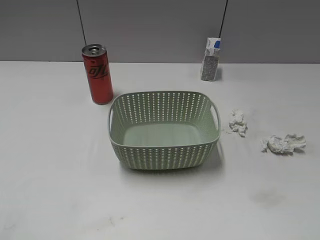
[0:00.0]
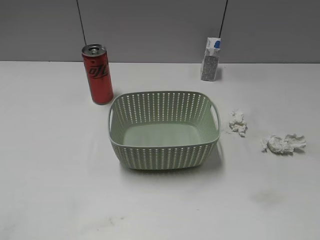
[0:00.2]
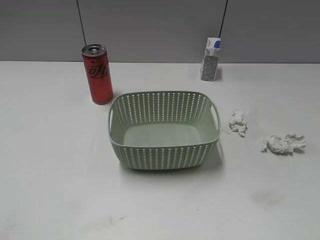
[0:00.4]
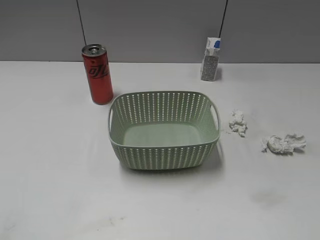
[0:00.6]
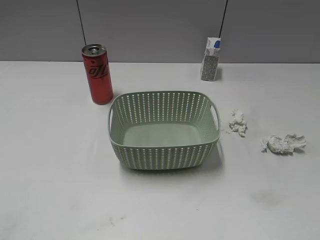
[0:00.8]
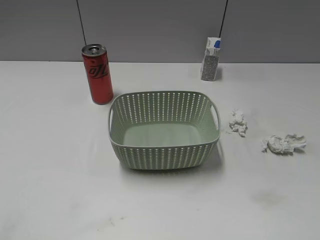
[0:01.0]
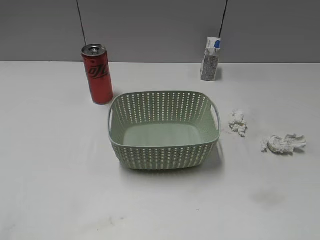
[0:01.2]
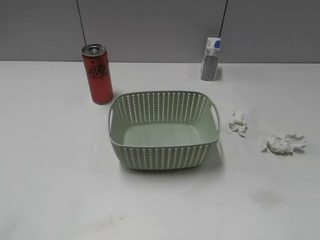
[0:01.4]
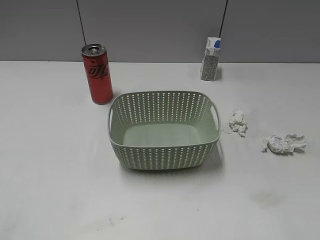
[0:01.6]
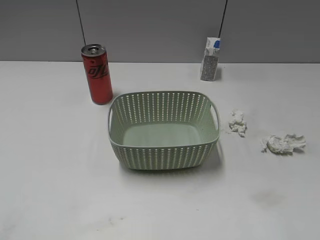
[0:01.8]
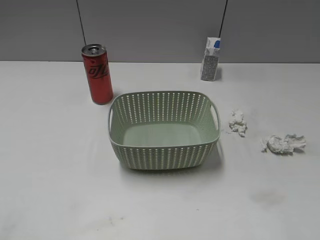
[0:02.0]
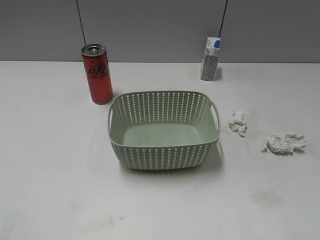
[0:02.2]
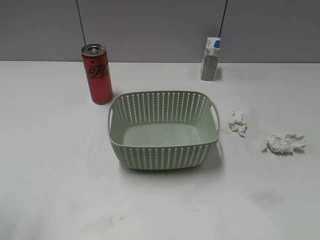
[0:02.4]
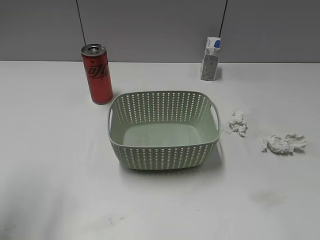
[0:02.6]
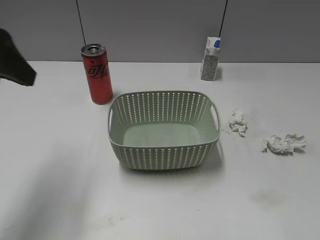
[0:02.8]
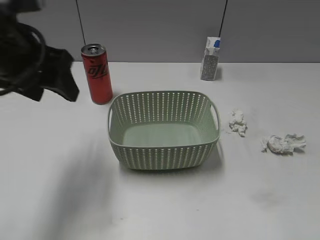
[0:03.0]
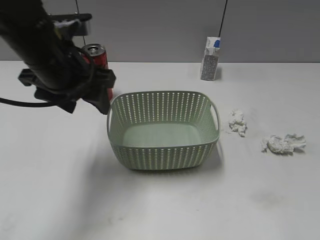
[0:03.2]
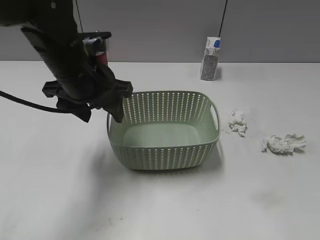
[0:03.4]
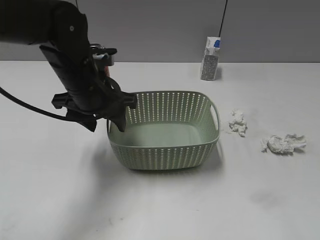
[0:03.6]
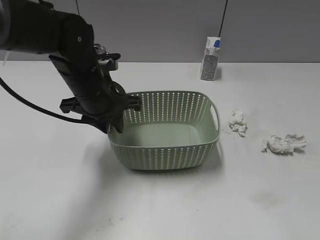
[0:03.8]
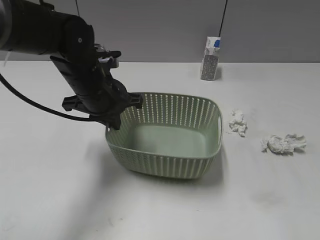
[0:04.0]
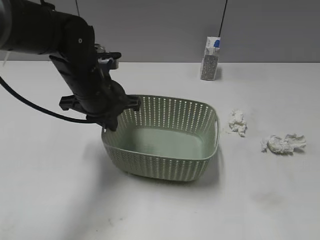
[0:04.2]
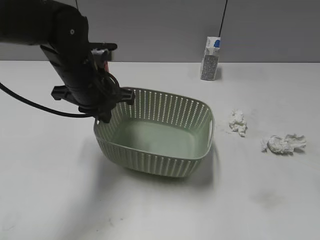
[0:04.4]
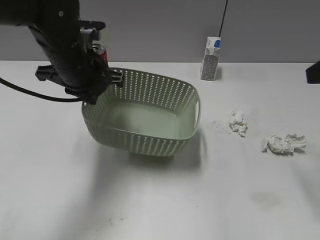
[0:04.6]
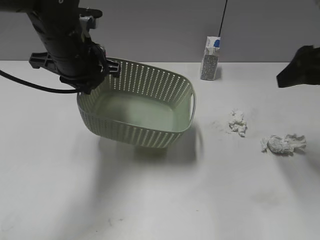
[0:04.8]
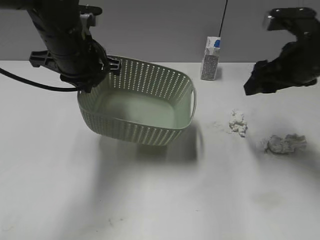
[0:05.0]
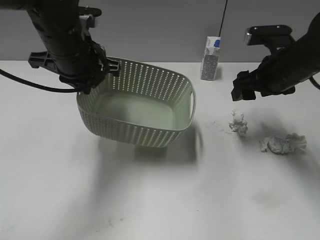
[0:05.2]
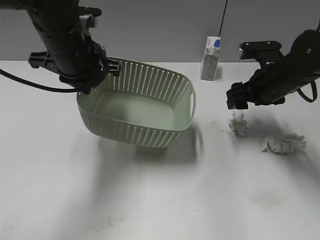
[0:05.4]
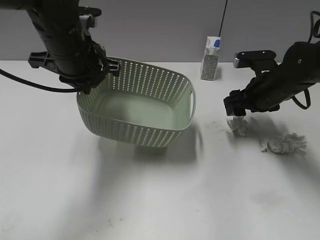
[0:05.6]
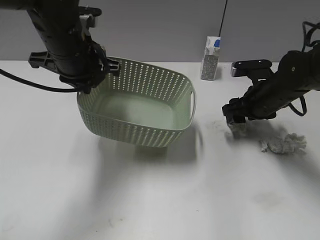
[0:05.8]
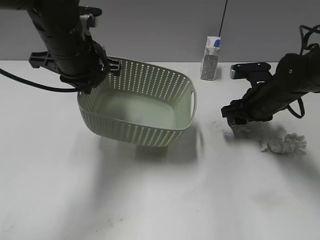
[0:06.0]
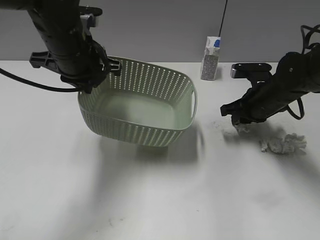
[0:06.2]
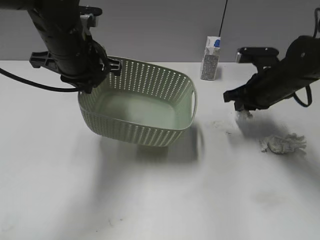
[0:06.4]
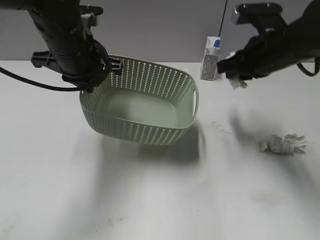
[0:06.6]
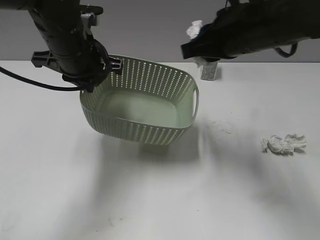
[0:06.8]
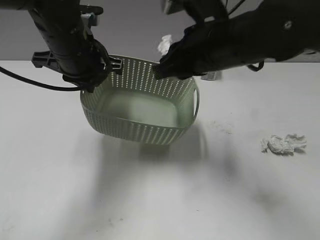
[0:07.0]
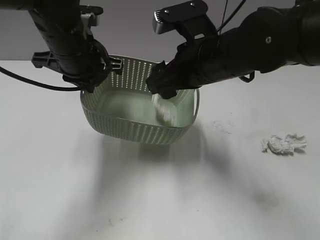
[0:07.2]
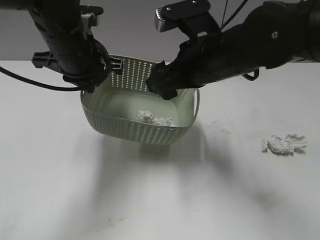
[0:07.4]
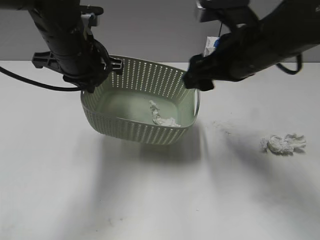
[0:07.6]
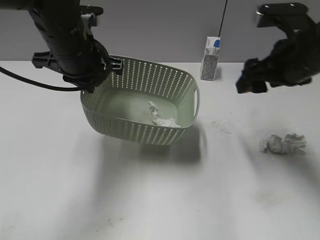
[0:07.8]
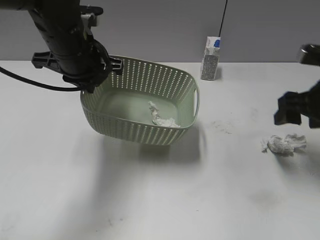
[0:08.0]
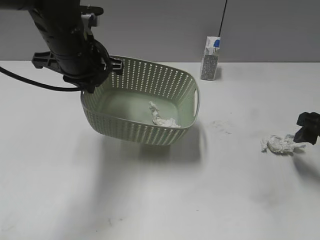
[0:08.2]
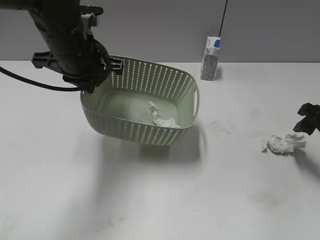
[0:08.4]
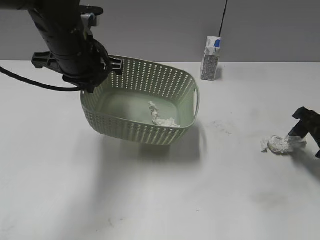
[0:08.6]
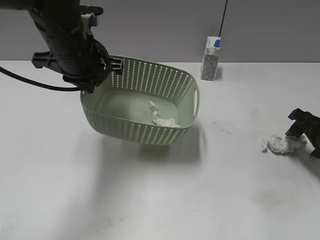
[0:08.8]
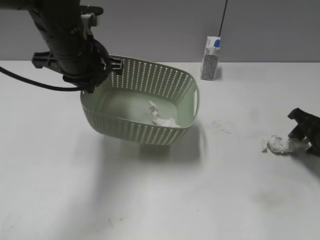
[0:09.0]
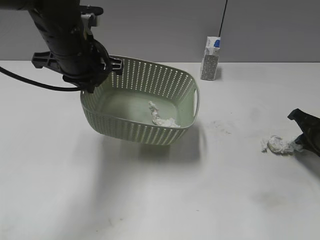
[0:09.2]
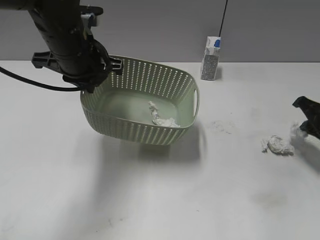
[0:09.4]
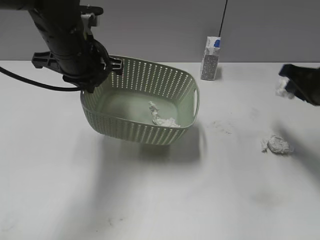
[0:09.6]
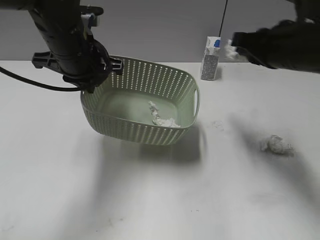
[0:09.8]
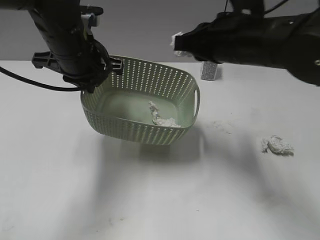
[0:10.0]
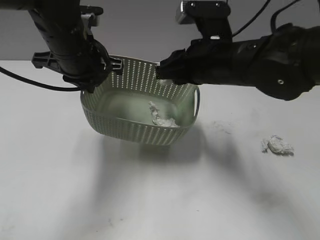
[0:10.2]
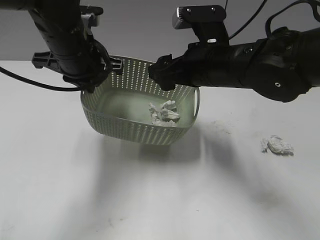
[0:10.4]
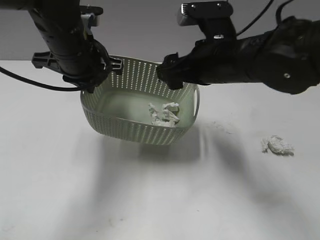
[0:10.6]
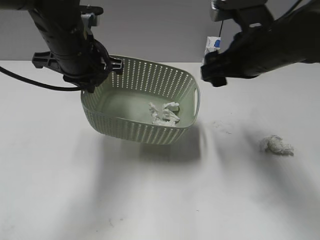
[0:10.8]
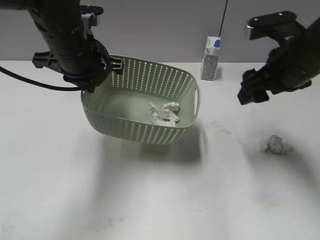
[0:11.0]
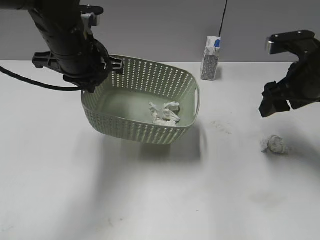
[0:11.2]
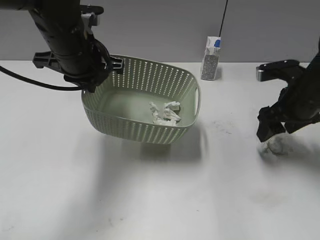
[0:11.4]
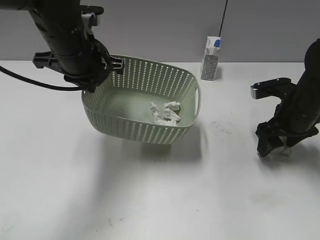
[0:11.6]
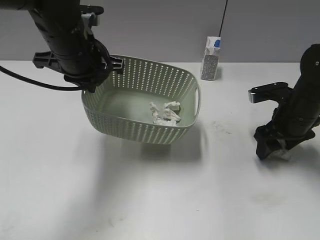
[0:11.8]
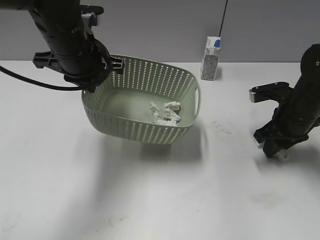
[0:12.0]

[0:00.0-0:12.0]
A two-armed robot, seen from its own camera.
Step, 0:01.0 to 0:04.0: Grasp the basket with left gripper.
Step, 0:04.2 to 0:04.8: Lift the basket with left gripper.
Step, 0:05.0 to 0:06.2: Grasp the waste paper with right gripper.
Step, 0:06.4 to 0:07.4: Place the waste paper in the basket with right gripper.
Step, 0:07.6 to 0:09.2: Grasp the waste paper with right gripper.
Step, 0:09.4 to 0:10.6: Place the waste paper in the basket with right gripper.
0:01.6 to 0:03.0: The left gripper travels forward and to the right by some 30 cm.
0:03.0 to 0:04.4: The right gripper heads forward, covering some 10 cm. Meanwhile the left gripper shifts some 15 cm downward, to the right and forward, and closes up.
0:04.4 to 0:06.0: The right gripper heads downward and forward, covering about 30 cm, while the left gripper shifts roughly 5 cm upward.
0:06.0 to 0:07.6: The right gripper goes approximately 20 cm upward, to the left and backward, and closes, then opens again.
0:07.6 to 0:09.0: The right gripper is displaced to the right and downward by about 25 cm.
0:09.0 to 0:10.4: The right gripper goes approximately 25 cm to the left and upward, and closes, then opens again.
0:10.4 to 0:12.0: The right gripper moves to the right and downward, about 20 cm, and closes its fingers.

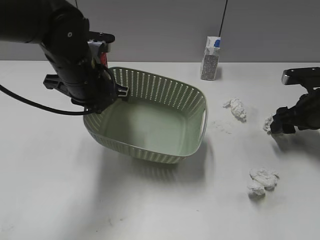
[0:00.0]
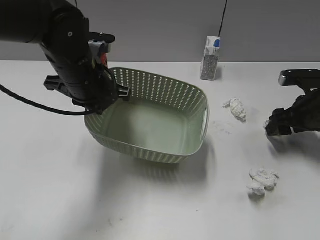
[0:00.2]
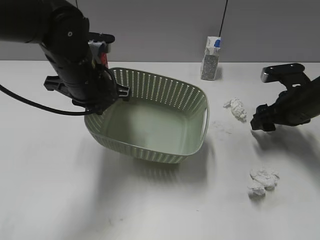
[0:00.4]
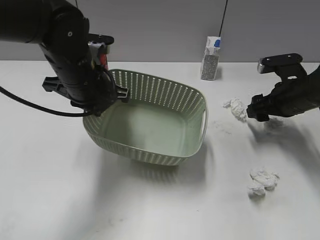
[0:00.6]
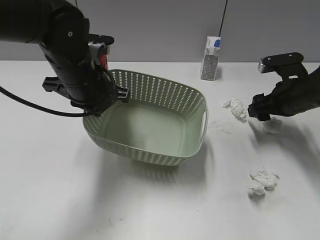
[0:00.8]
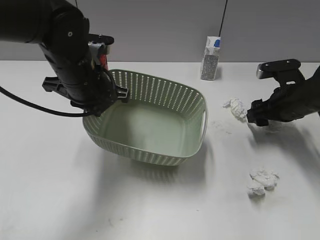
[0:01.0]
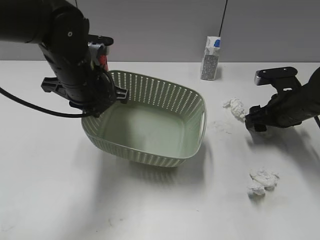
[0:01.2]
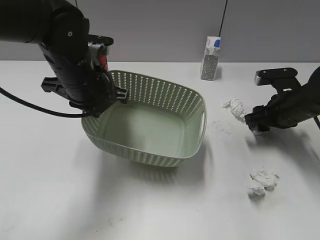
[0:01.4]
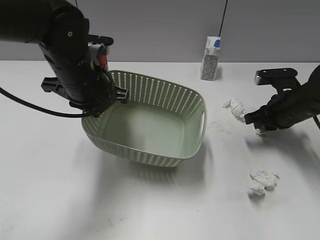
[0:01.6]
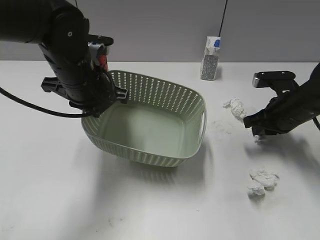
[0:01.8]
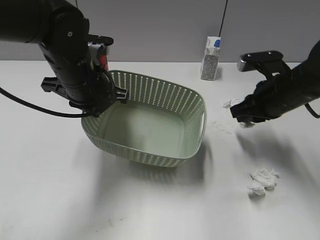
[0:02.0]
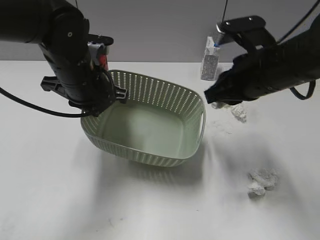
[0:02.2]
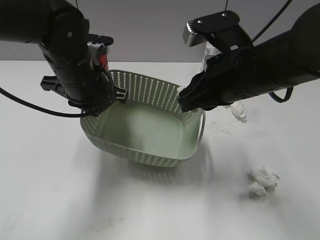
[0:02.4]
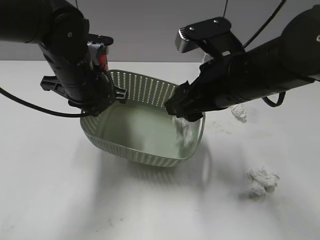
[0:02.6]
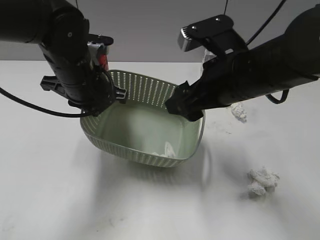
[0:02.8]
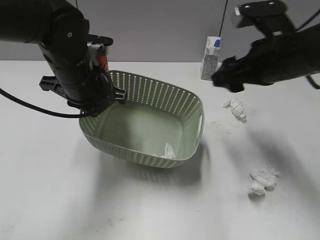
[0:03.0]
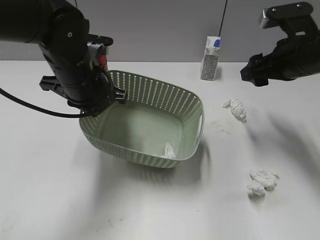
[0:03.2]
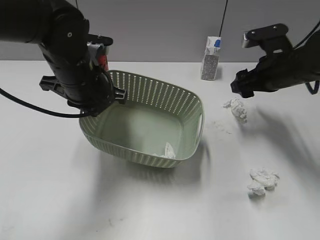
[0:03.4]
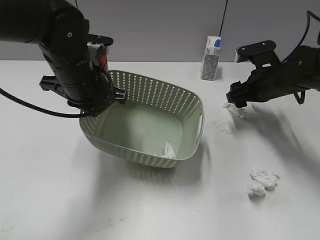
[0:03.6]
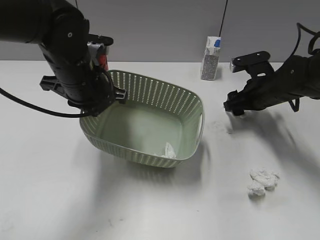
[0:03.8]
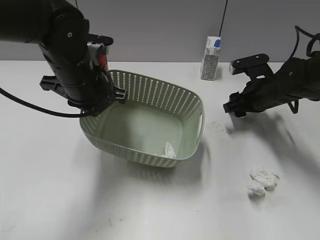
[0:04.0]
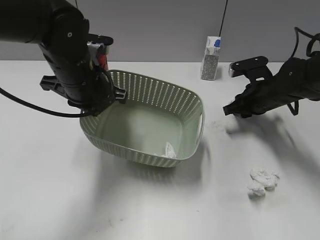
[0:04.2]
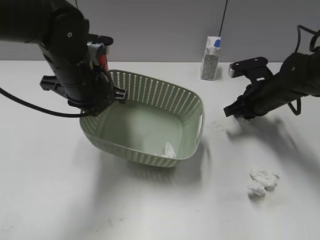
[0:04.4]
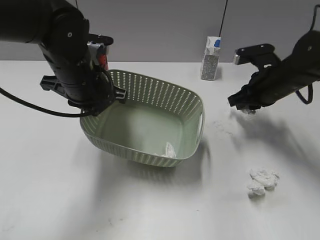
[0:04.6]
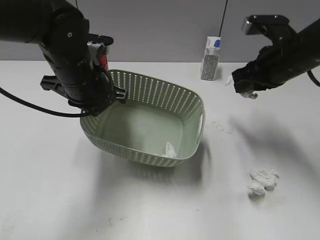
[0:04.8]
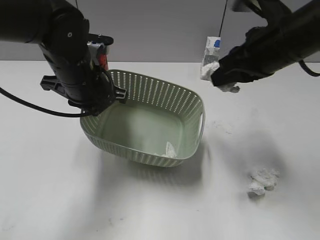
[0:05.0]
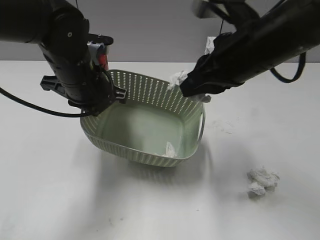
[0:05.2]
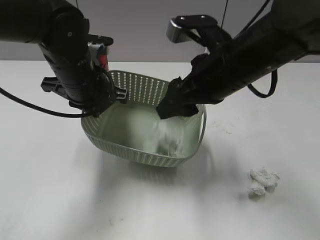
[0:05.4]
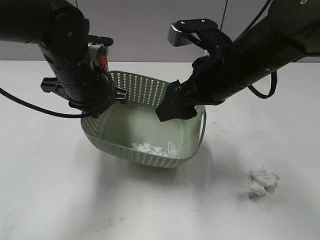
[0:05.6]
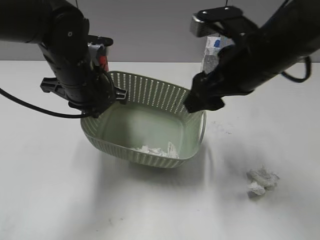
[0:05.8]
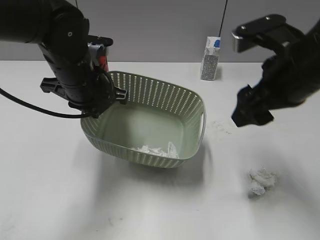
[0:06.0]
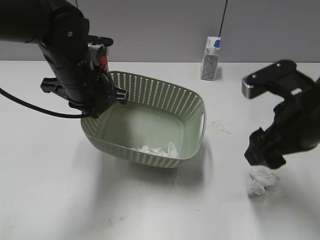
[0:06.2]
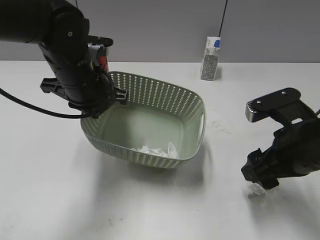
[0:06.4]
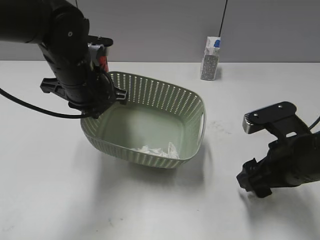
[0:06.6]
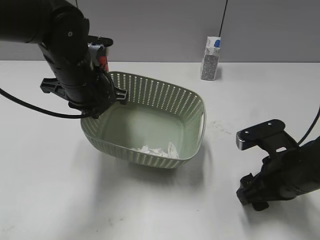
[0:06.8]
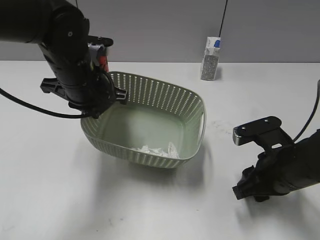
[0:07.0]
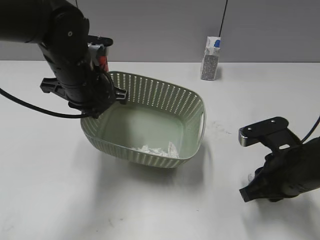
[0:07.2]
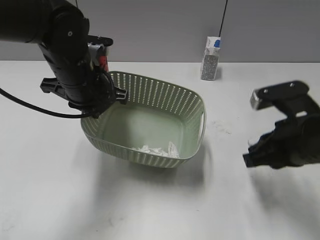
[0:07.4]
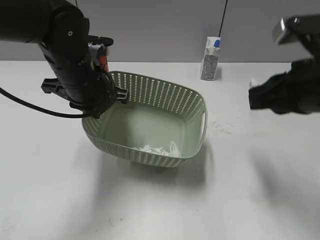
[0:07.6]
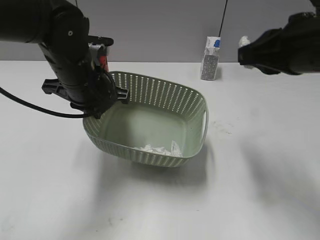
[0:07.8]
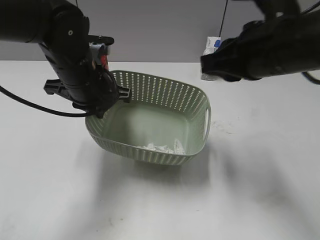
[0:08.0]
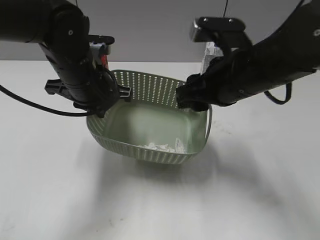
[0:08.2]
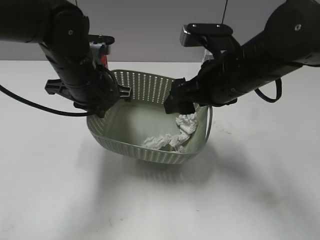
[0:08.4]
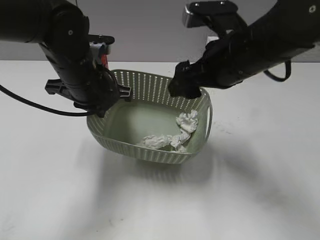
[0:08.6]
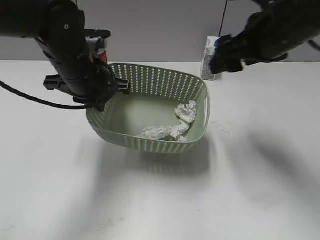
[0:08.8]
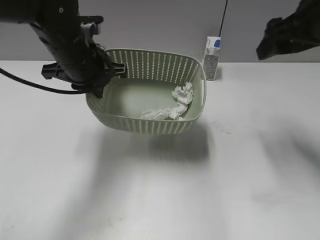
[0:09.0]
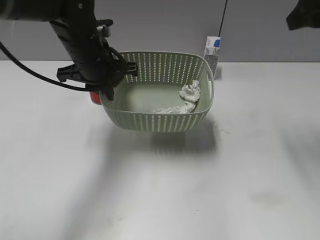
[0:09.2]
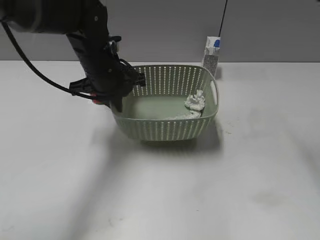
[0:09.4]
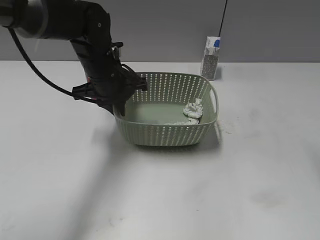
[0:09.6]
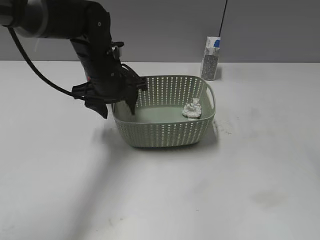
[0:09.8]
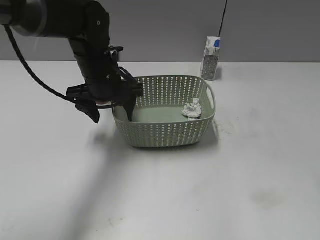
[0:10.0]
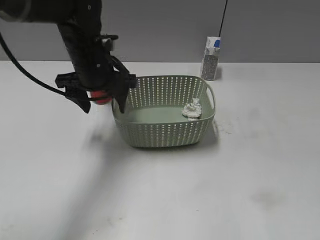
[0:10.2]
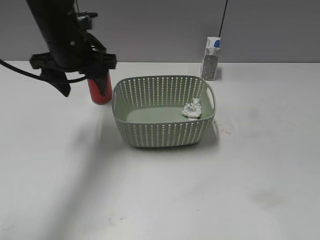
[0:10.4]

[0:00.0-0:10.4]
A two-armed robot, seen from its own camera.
Step, 0:00.0 to 0:01.6: Grasp the waste paper with right gripper.
Step, 0:01.8 to 0:02.8: Place the waste paper in the basket with right gripper.
Step, 0:03.0 to 0:04.2: Grasp the waste paper with right gripper.
Step, 0:04.4 to 0:05.8: Place the waste paper in the basket with right gripper.
Step, 0:06.0 to 0:07.2: Grasp the waste paper with right gripper.
Step, 0:07.4 to 0:08.6: Place the waste paper in the basket with right gripper.
Step, 0:08.8 to 0:10.4: Place the basket on the table with left gripper.
0:00.0 to 0:01.4: The right gripper changes place by roughly 5 cm.
0:01.4 to 0:03.0: The right gripper shifts approximately 15 cm upward and to the left, and closes, then opens again.
0:03.0 to 0:04.4: The right gripper travels downward and forward by roughly 15 cm, and closes up.
0:04.4 to 0:06.0: The right gripper is displaced upward and backward by approximately 20 cm, and opens its fingers.
0:06.0 to 0:07.4: The right gripper heads downward and backward, covering roughly 10 cm, and closes up.
0:07.4 to 0:09.0: The right gripper moves up and down over approximately 15 cm, changing direction 2 times, and opens.
0:09.0 to 0:10.4: The right gripper travels backward by roughly 20 cm. The left gripper opens its fingers.
